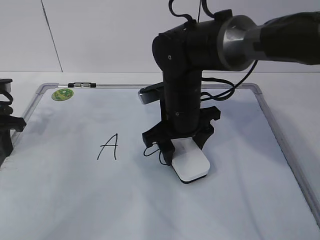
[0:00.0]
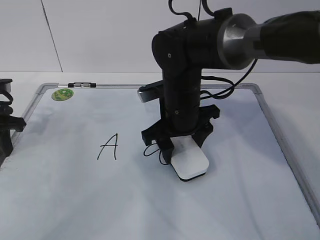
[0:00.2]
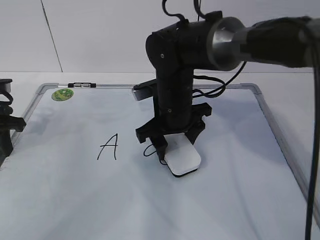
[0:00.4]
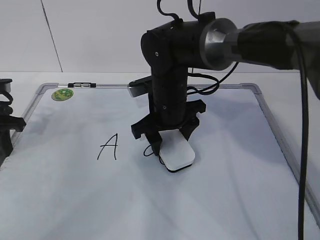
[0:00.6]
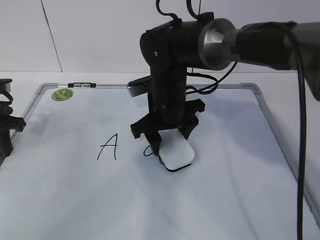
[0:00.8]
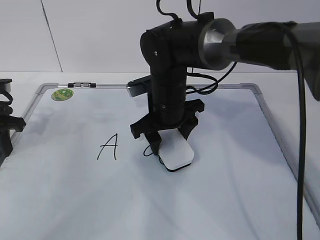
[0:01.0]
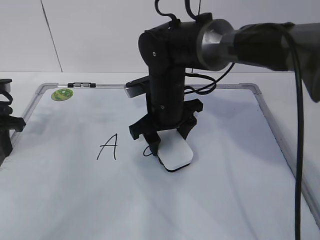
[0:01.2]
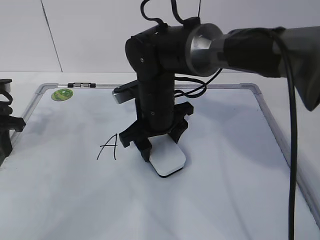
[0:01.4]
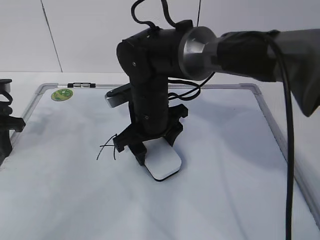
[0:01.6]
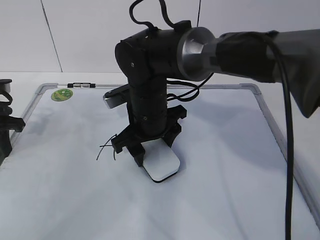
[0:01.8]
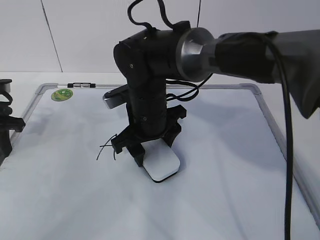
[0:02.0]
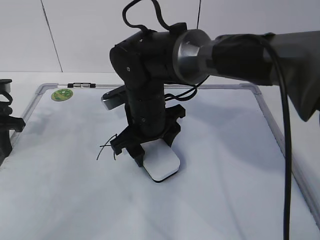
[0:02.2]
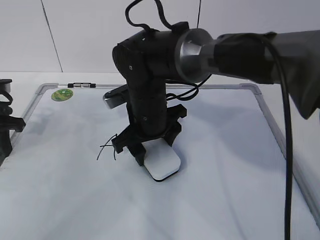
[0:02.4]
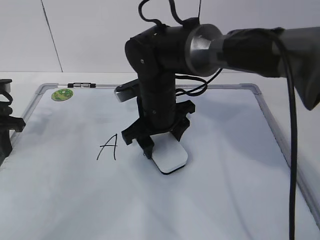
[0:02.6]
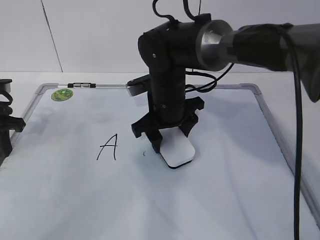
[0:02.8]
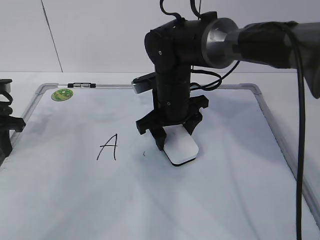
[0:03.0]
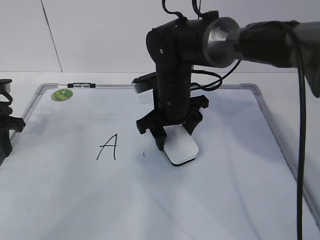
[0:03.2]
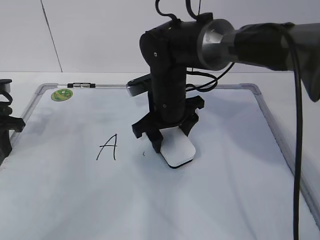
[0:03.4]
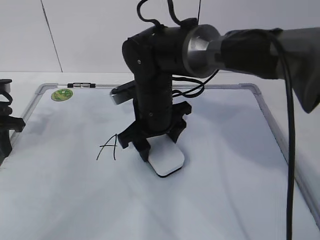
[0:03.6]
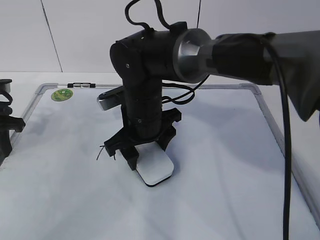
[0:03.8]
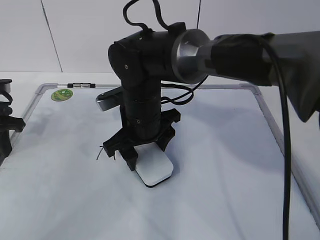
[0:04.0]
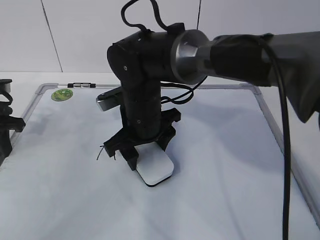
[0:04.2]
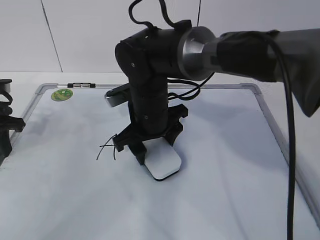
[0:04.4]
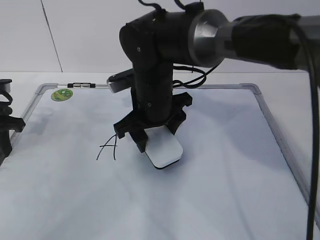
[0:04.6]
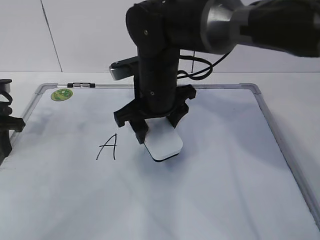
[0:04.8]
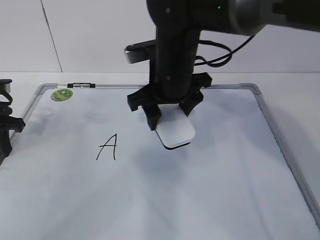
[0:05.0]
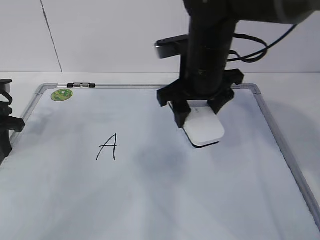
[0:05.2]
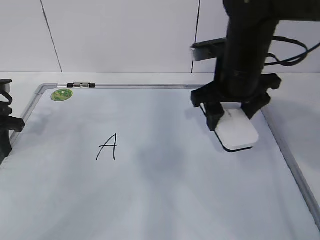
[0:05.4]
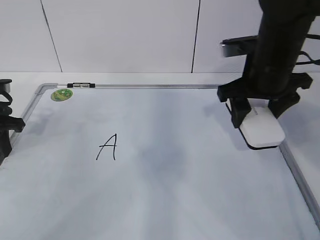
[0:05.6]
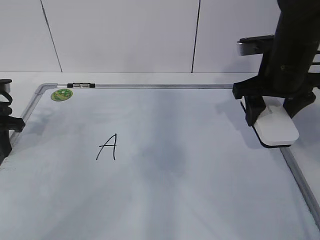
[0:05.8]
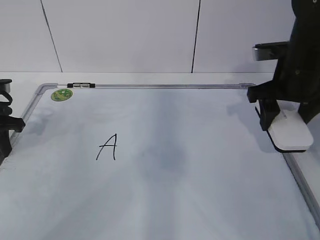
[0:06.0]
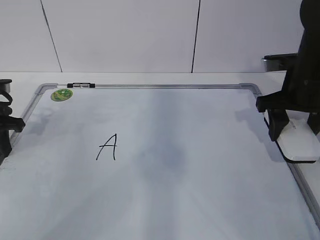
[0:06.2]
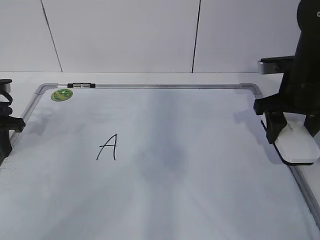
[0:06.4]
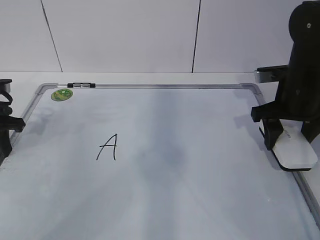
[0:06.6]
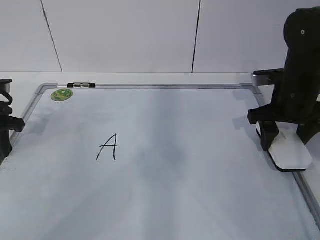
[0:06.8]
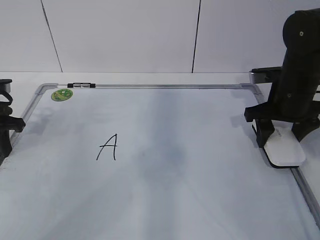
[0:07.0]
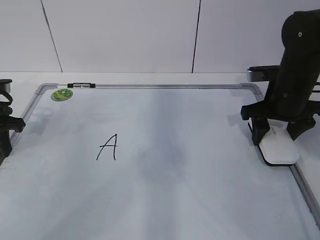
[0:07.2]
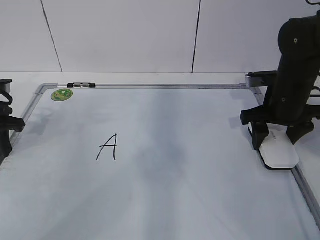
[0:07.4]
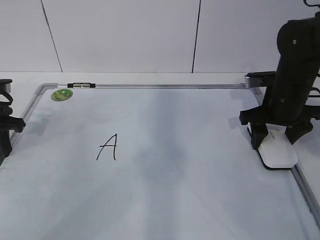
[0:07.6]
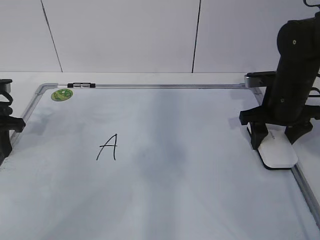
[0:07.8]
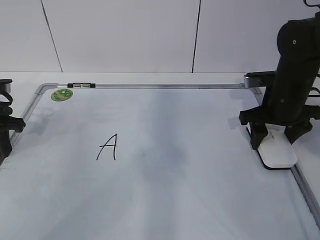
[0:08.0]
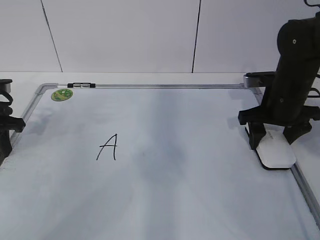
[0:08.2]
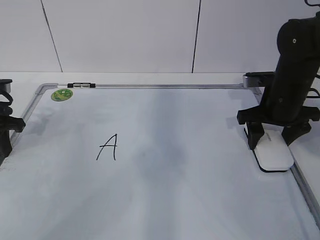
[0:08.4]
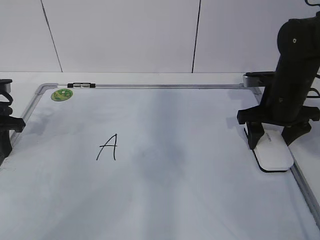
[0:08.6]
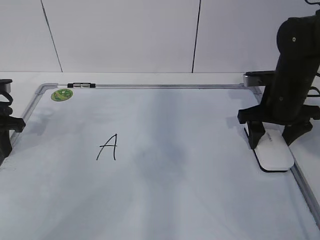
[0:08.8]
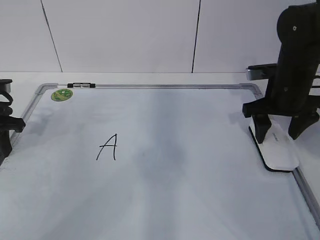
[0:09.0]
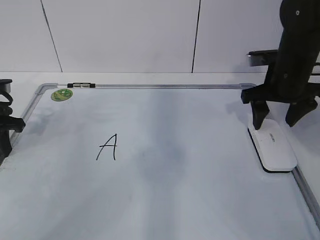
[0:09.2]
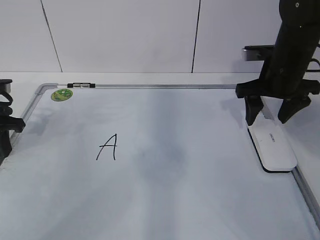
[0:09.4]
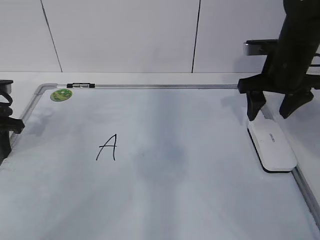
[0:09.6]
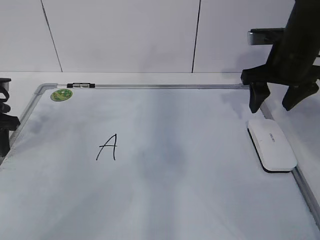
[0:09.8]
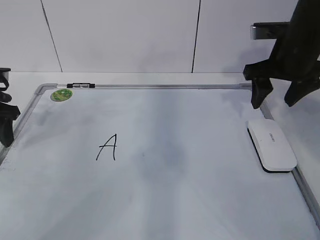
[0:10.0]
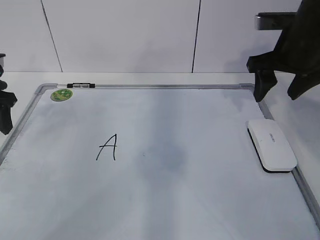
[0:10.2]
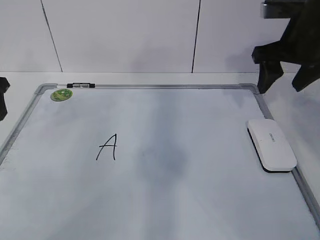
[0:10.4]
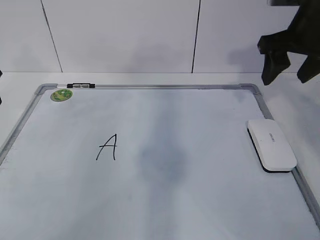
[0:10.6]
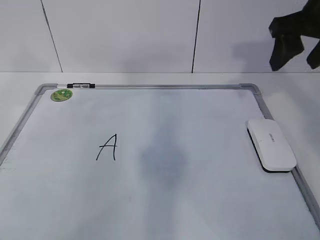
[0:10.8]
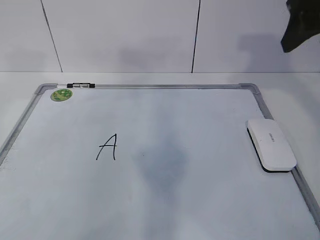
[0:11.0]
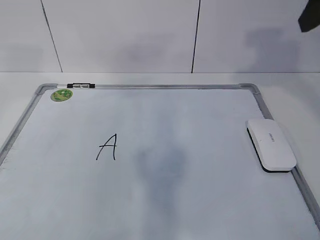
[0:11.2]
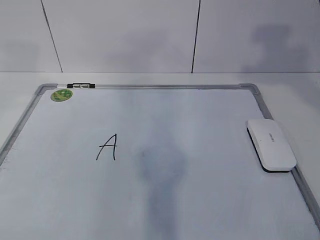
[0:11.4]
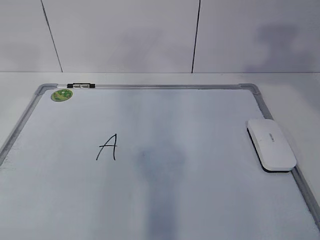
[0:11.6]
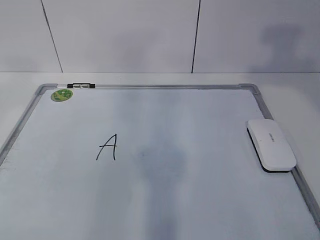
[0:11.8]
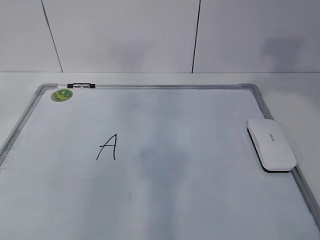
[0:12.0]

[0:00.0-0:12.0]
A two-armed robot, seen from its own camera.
Task of the whole recording: pick up the eraser on the blackboard and erase the letter "a".
Step, 0:00.4 to 0:04.2: Put down the eraser with your right hand.
0:00.0 to 0:01.6: The right gripper goes approximately 5 cm to the left.
0:01.6 to 0:03.0: The right gripper changes place by approximately 5 cm.
0:03.0 to 0:04.4: The right gripper shifts by some 5 cm.
0:04.4 to 0:06.0: The right gripper is displaced to the right by roughly 25 cm.
0:06.0 to 0:07.6: The right gripper is displaced downward by some 5 cm.
0:07.6 to 0:09.0: The right gripper opens its fingers.
0:09.0 to 0:10.4: Both grippers travel together upward, approximately 10 cm. The left gripper opens.
0:10.4 to 0:12.0: Both grippers travel together backward and upward, roughly 25 cm.

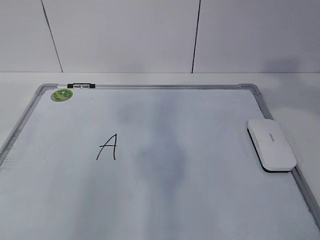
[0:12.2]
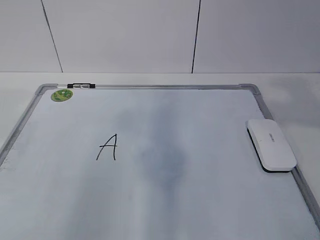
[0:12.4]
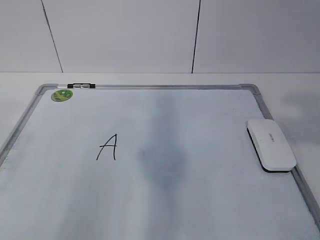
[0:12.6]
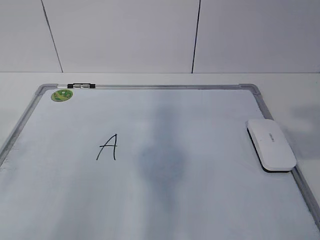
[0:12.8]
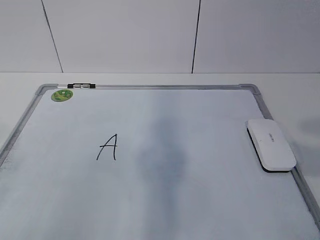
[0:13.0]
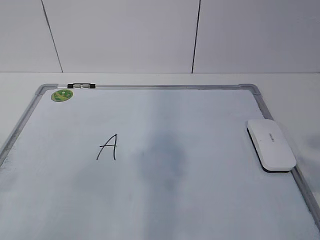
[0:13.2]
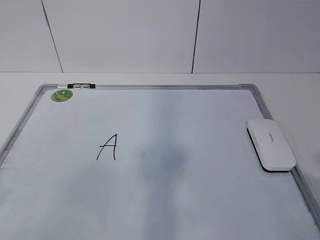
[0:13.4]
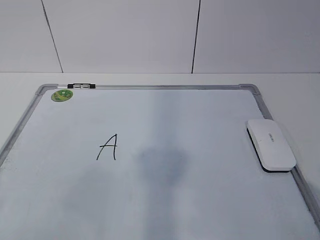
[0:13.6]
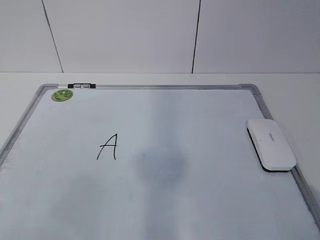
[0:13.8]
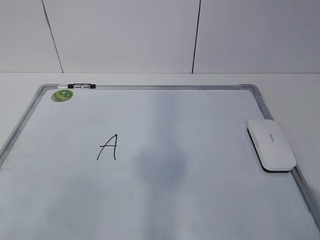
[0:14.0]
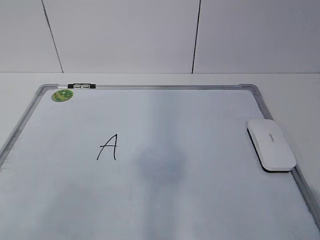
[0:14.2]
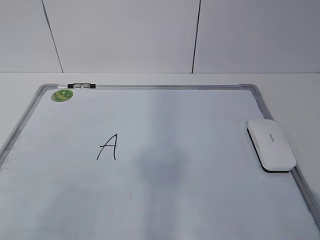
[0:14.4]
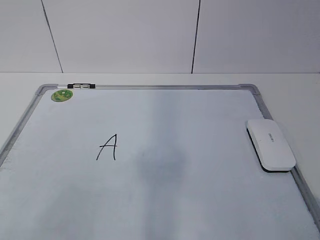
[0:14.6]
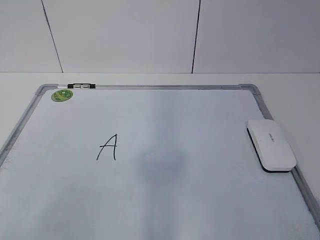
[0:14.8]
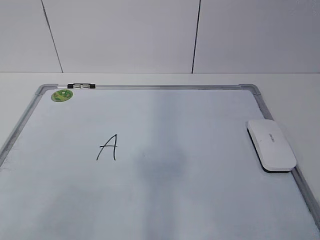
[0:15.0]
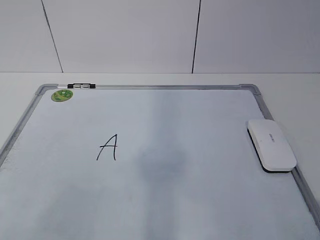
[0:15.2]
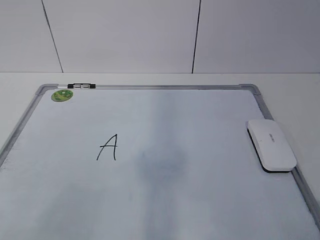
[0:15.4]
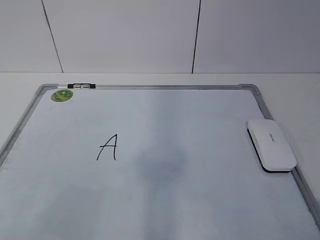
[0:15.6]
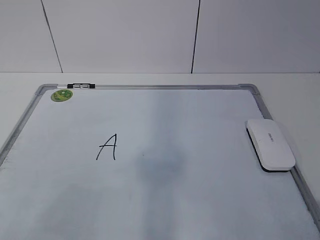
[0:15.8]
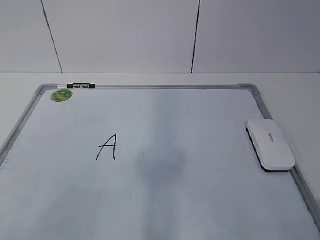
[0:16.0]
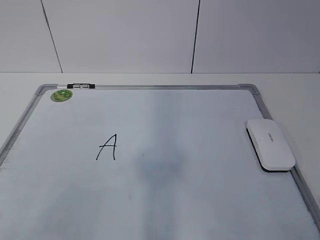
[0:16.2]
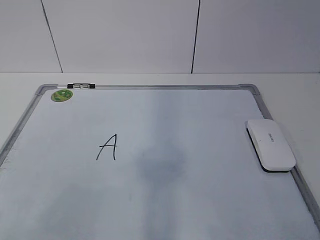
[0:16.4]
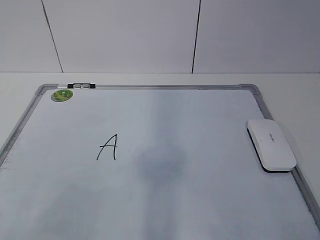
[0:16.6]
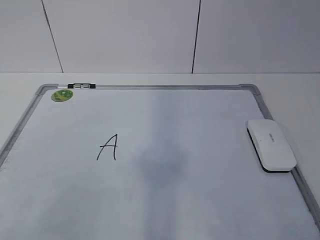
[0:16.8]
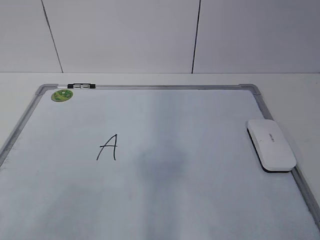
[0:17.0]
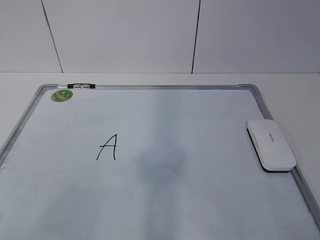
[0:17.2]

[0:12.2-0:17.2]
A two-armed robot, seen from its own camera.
Task of the whole recording: pick up the eraser on the blackboard and erase the letter "a".
0:12.2 to 0:13.8: The right gripper is displaced downward and backward by some 20 cm.
